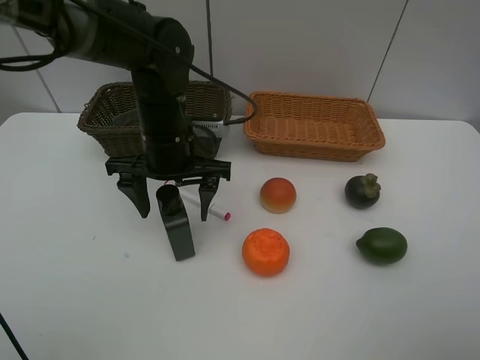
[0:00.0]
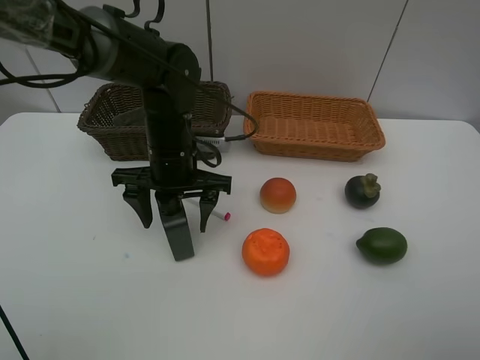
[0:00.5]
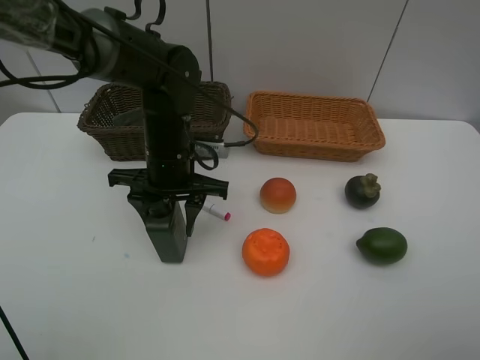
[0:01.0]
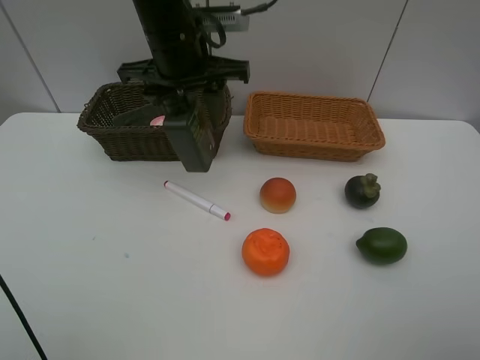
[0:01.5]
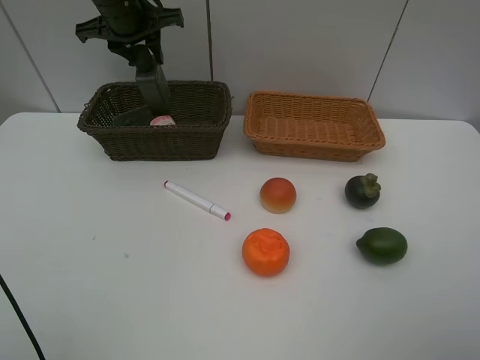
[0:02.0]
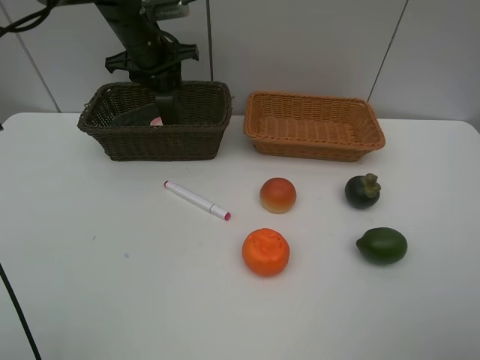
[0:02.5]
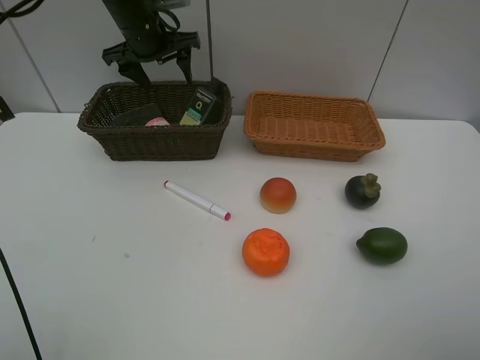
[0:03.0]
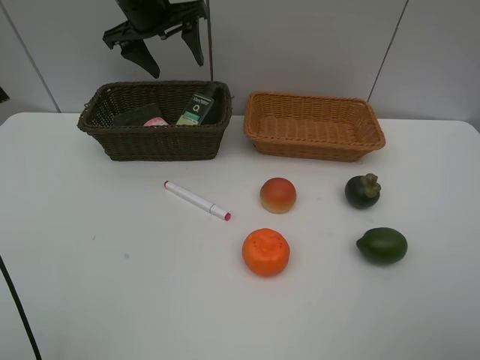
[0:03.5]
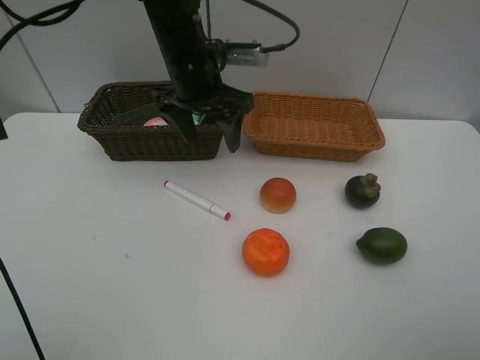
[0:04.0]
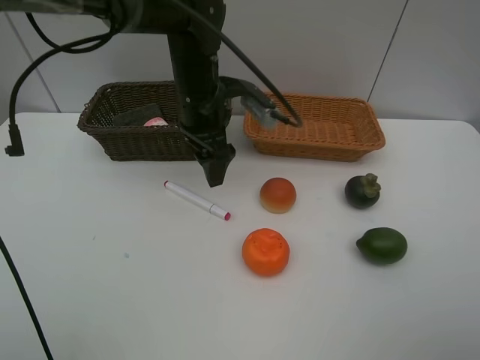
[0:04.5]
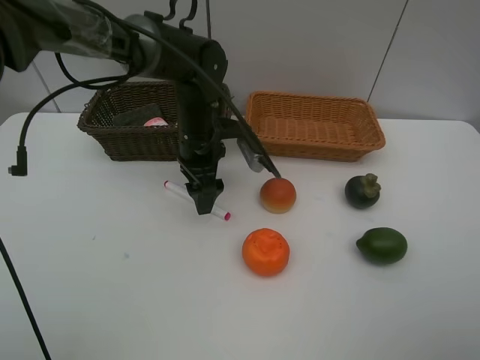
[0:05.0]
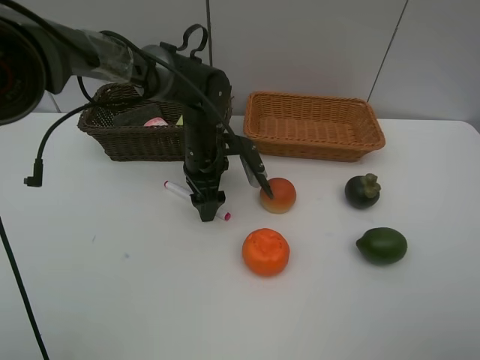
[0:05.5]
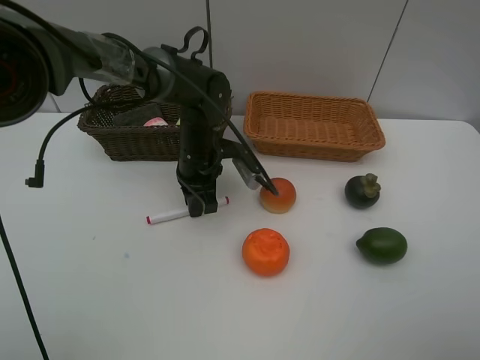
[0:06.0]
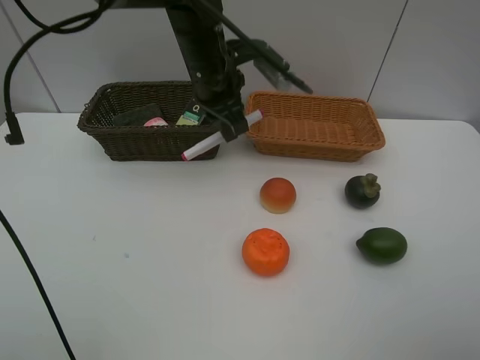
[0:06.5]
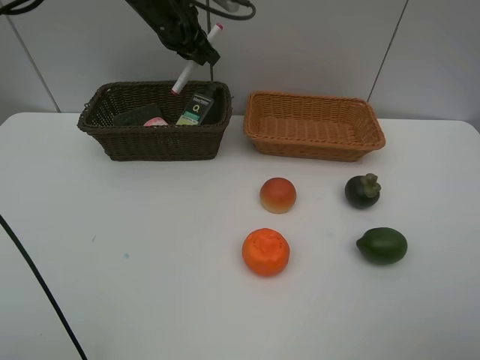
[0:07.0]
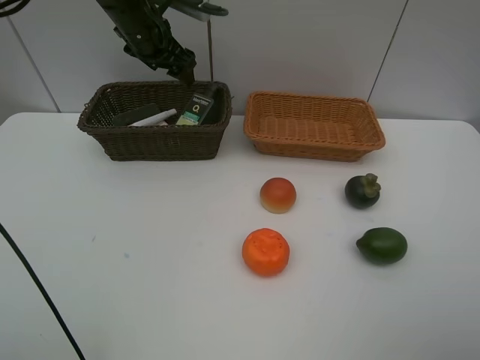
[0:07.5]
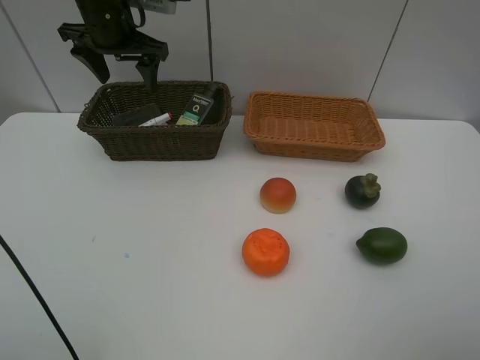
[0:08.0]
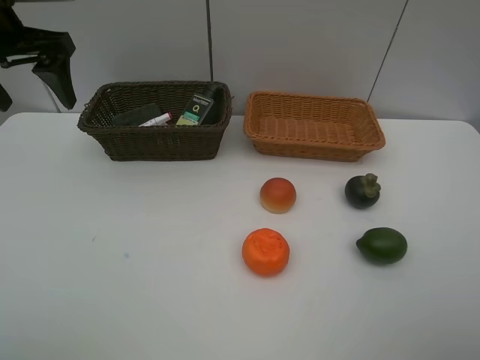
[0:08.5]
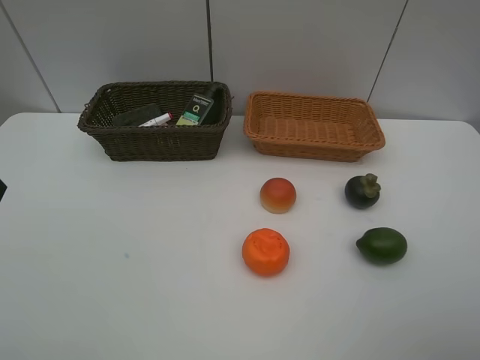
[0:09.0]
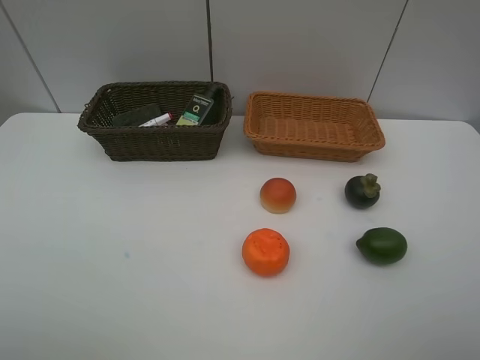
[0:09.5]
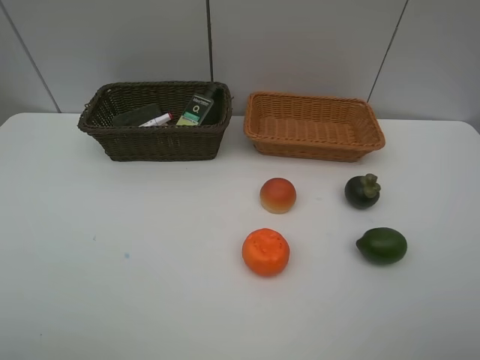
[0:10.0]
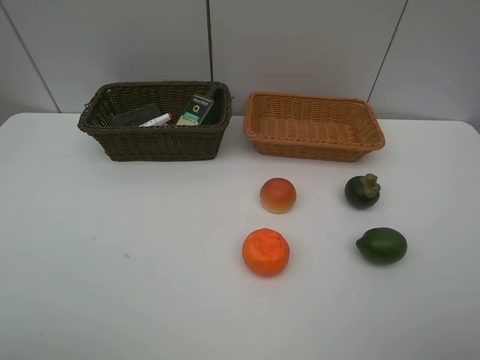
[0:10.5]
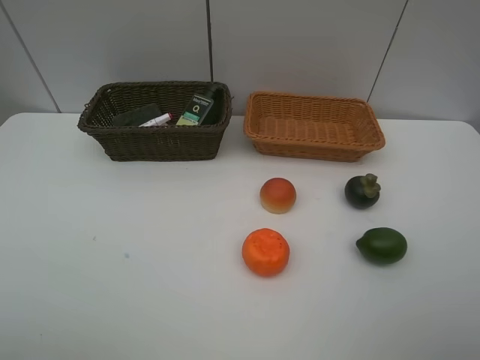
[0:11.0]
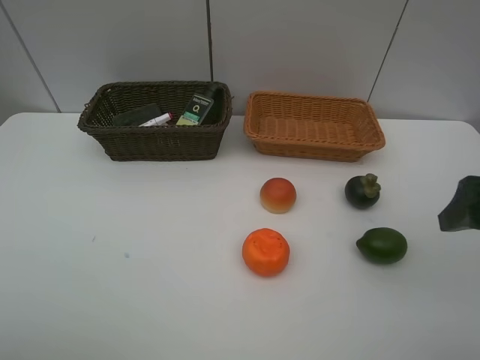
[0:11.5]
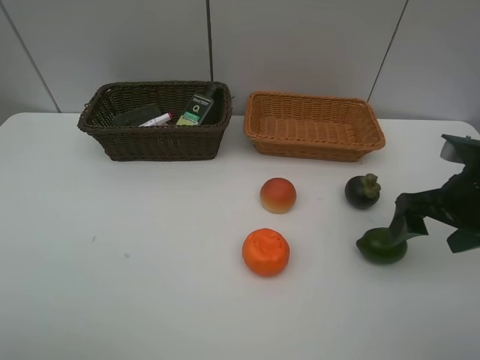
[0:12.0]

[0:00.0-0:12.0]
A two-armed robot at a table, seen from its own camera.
Task of the whole recording: Place multiple objects separately in different baskets.
Step, 0:01.5 to 0:03.0: Place the hard facial cleanser in the dark basket with left gripper.
Step, 0:03.5 to 0:06.0: Pick up the red marker with left gripper.
Step, 0:06.5 to 0:07.5: Place the red marker in the dark basket with left gripper.
0:00.0 to 0:02.0: The left gripper heads forward, upward and to the left, covering roughly 20 cm, and closes up.
0:02.0 to 0:04.0: The left gripper goes about 15 cm to the right and backward, and opens its fingers.
0:04.0 to 0:06.0: The left gripper shifts about 15 cm downward, and closes its fingers.
0:06.0 to 0:08.0: The left gripper shifts about 25 cm upward, to the left and forward, and opens its fingers.
0:08.0 to 0:10.0: The left gripper is displaced backward by roughly 50 cm.
0:10.0 to 0:12.0: The right gripper heads forward and downward, covering some 25 cm.

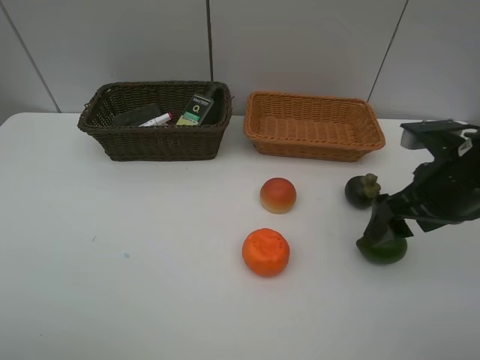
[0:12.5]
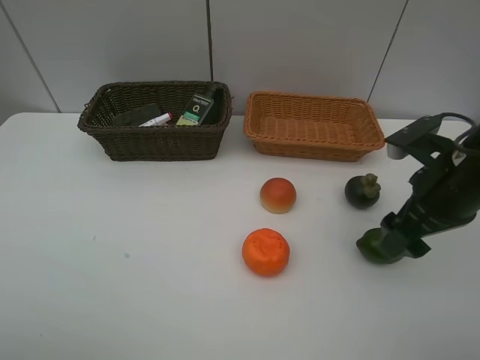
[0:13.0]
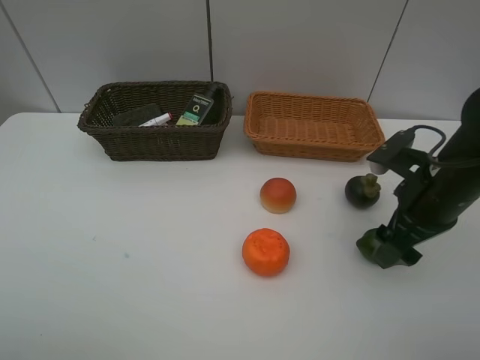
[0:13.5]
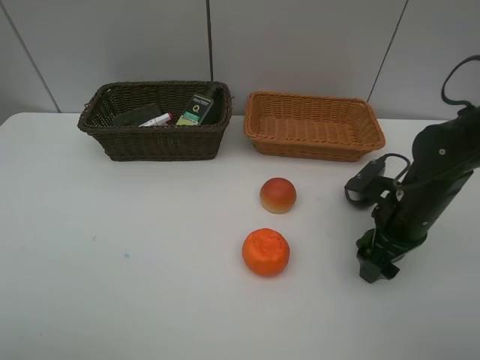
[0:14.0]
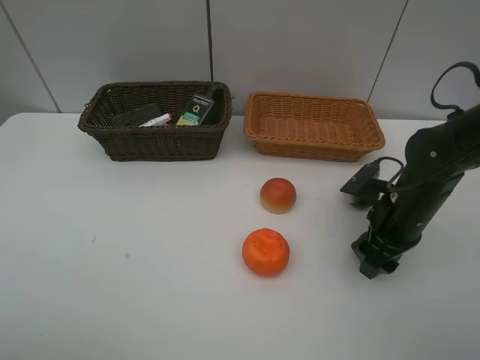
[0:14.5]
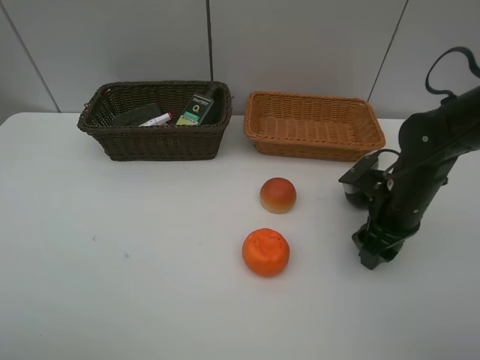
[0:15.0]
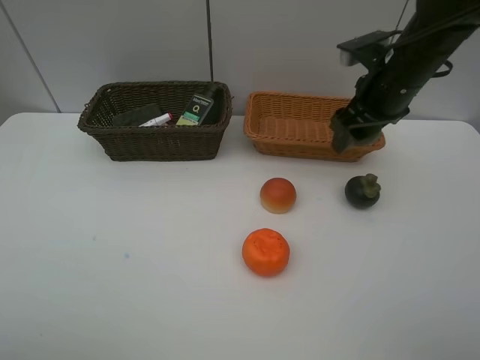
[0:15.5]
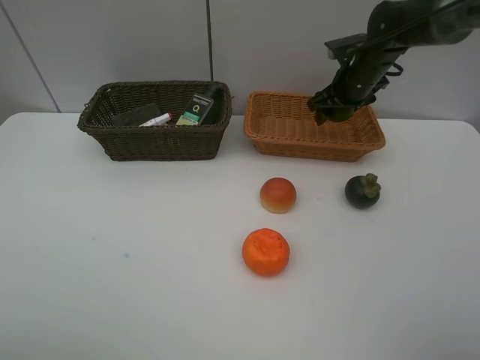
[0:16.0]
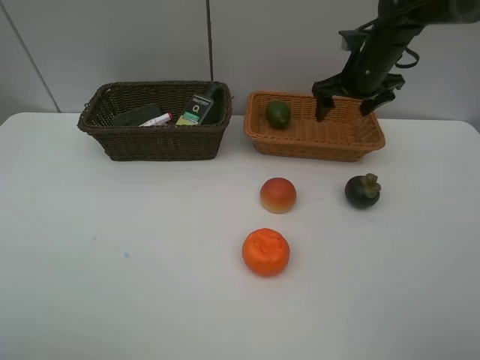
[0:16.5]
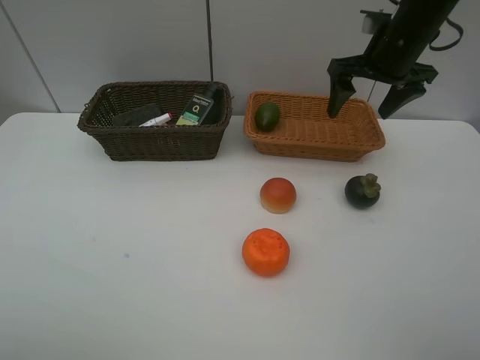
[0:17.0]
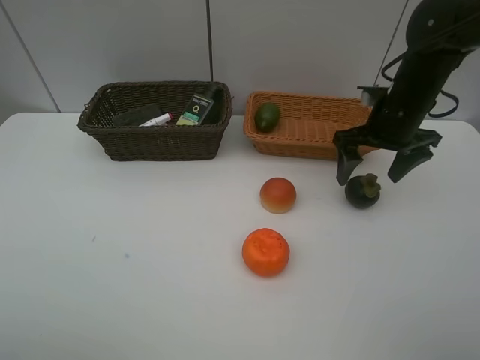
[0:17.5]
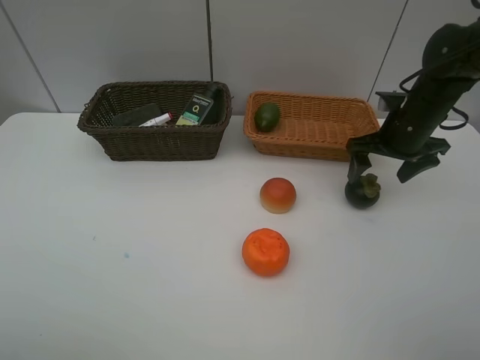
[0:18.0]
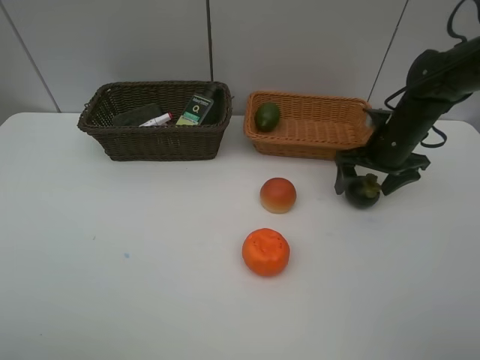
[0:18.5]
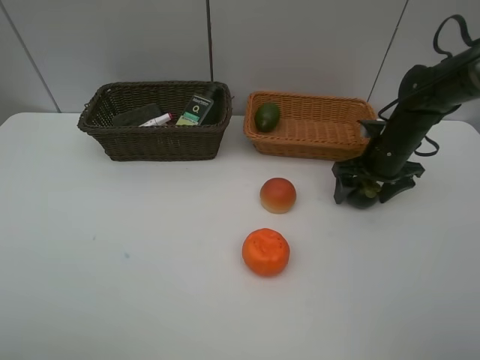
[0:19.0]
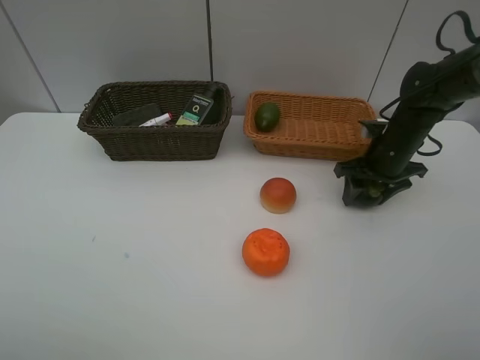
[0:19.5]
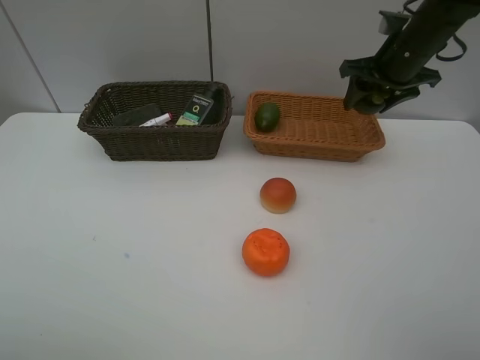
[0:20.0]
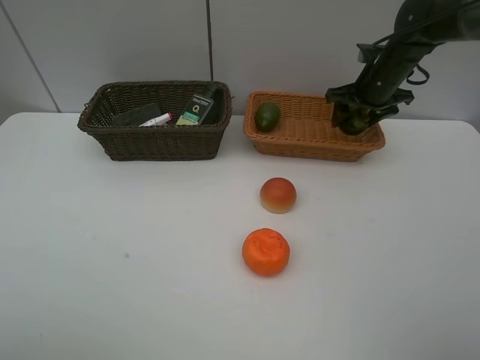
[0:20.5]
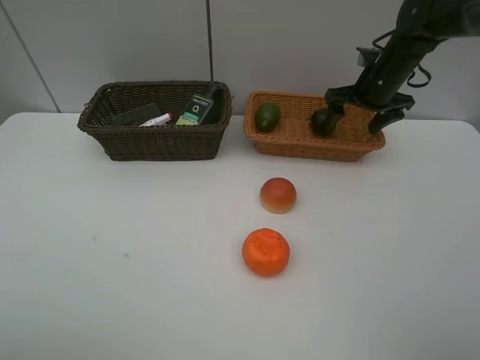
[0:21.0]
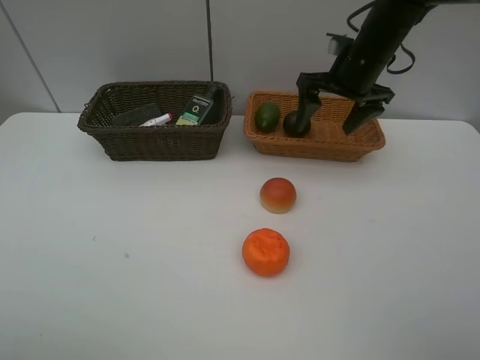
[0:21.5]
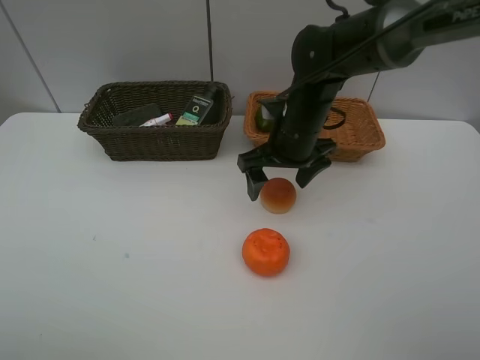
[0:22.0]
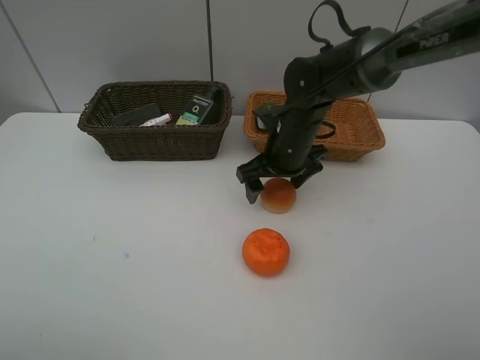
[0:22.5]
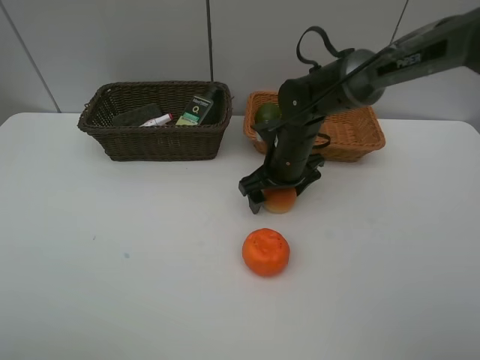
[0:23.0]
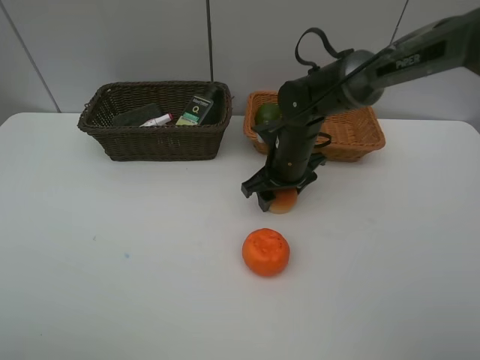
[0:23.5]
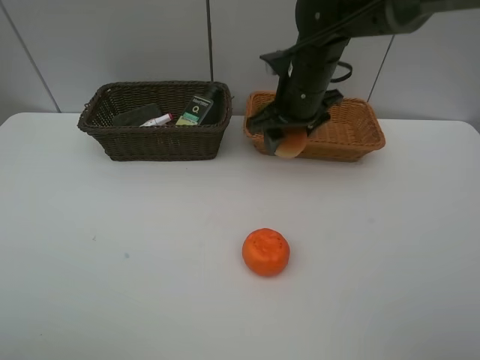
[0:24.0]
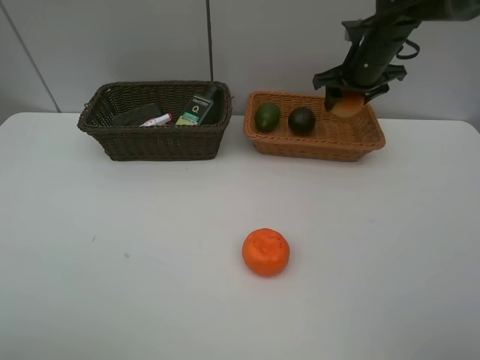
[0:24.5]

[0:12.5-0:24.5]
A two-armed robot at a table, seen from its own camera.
Task of the whole recording: Place multiple objects separately in different baskets.
Step, 0:12.5 to 0:15.0: Pick up the lime with right gripper.
Step, 0:15.5 to 0:16.0: Place the lime in the light basket with right gripper.
Step, 0:16.5 to 0:19.5: Pick up the mangosteen with right gripper.
Step, 0:20.0 to 0:20.5: Place the mangosteen in the light basket with right gripper.
Step, 0:21.0 to 0:23.5: Pick up egg yolk pastry with right gripper.
0:12.5 to 0:14.5: The right gripper moves downward, about 10 cm, and closes.
0:14.5 to 0:16.5: The right gripper shifts some 25 cm forward and upward, and opens up.
0:16.5 to 0:18.5: The right gripper travels downward and backward by about 10 cm.
0:18.5 to 0:20.5: The right gripper travels forward and upward by roughly 10 cm, and closes up.
0:20.5 to 0:22.5: The right gripper is displaced to the left and backward by some 20 cm, and opens.
0:22.5 to 0:24.5: The right gripper shifts roughly 20 cm to the right, forward and upward, and closes up.

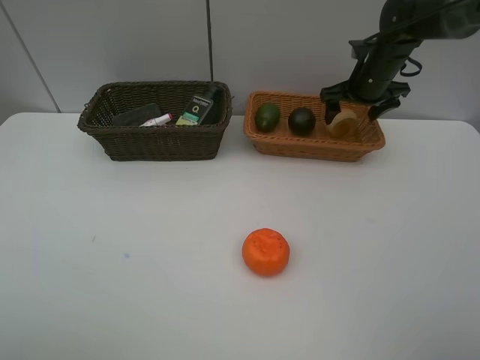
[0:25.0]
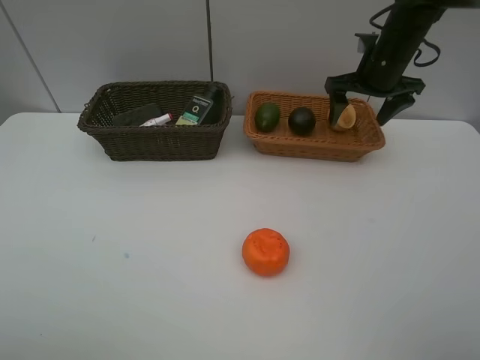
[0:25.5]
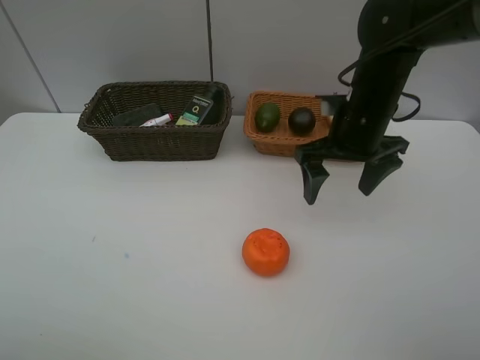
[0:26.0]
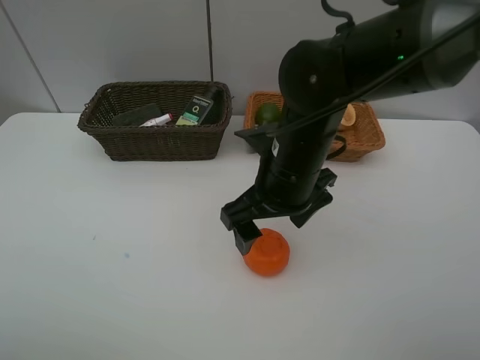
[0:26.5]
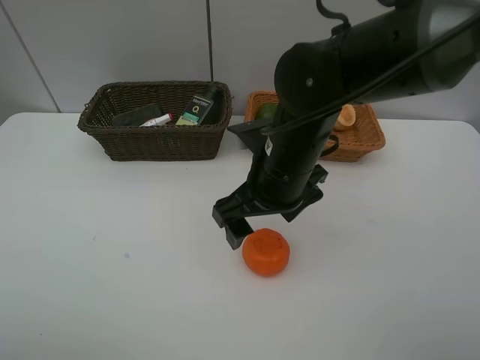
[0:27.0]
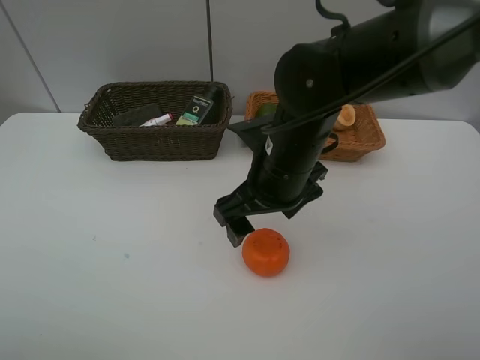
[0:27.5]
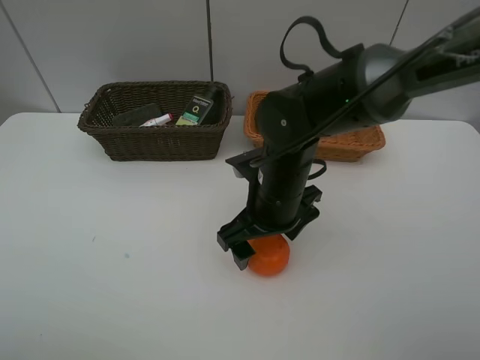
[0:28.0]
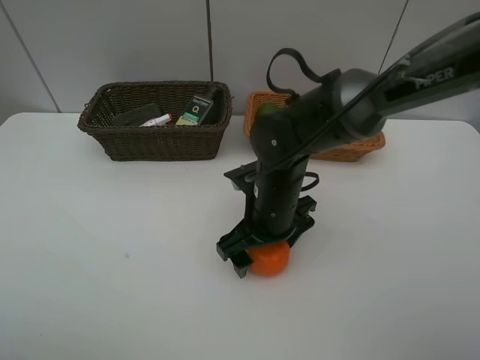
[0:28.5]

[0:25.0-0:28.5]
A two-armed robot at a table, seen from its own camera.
Task of the whole recording: Place multiple objects separately in different baskets.
0:25.0 to 0:27.0: The right gripper is displaced backward and to the left by roughly 30 cm.
0:27.0 to 0:28.5: The right gripper shifts some 10 cm downward.
